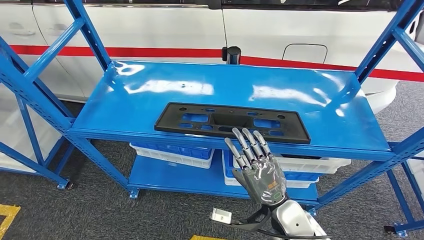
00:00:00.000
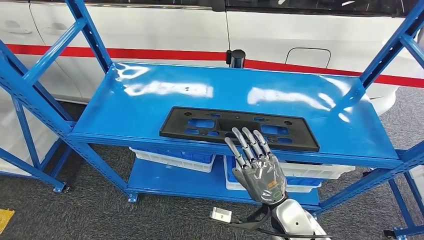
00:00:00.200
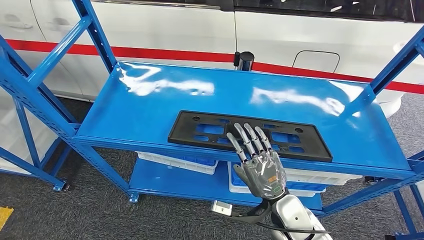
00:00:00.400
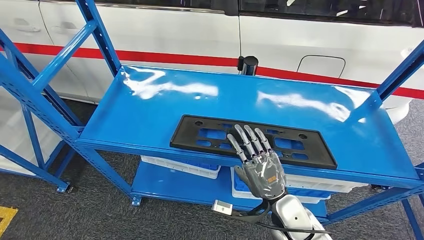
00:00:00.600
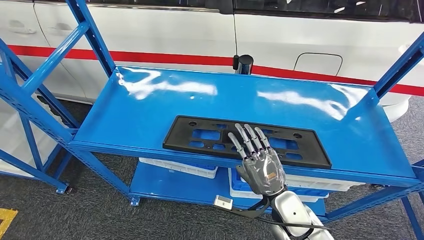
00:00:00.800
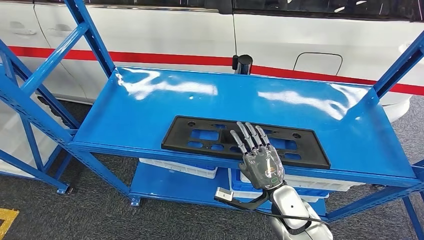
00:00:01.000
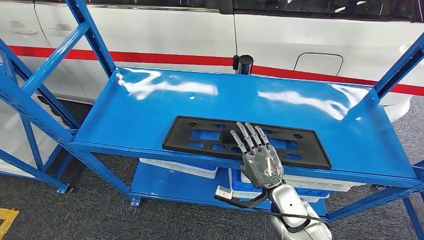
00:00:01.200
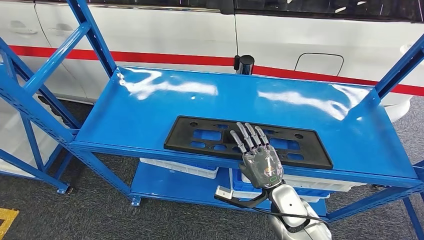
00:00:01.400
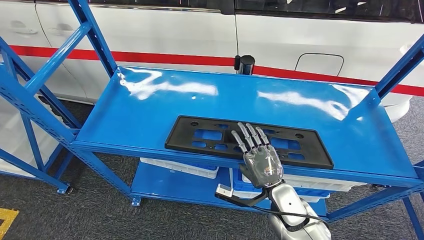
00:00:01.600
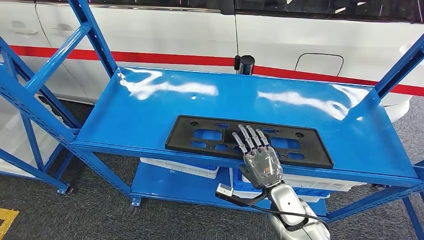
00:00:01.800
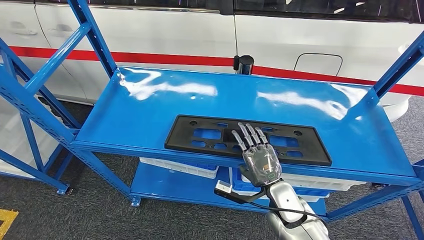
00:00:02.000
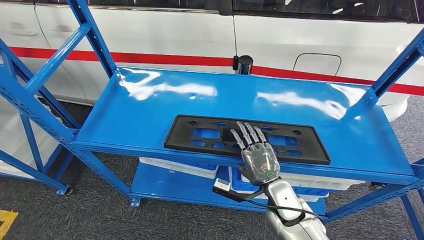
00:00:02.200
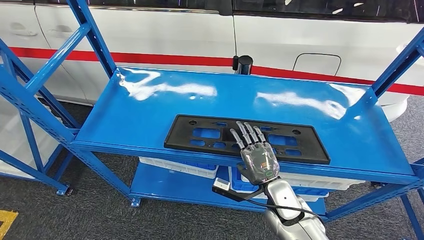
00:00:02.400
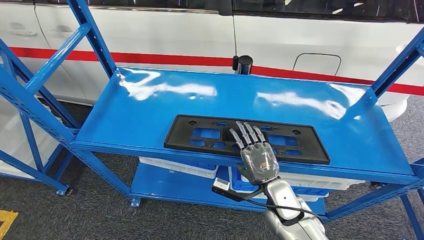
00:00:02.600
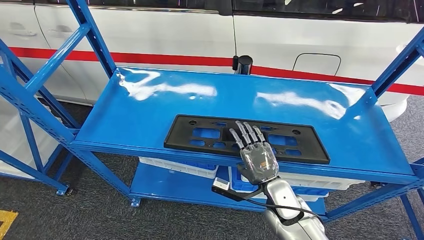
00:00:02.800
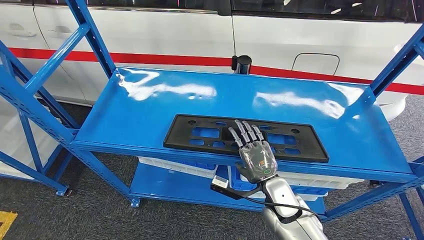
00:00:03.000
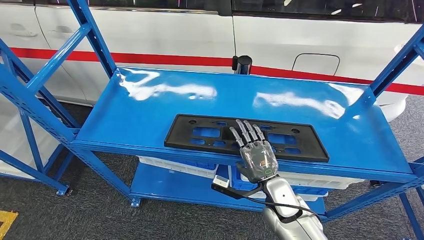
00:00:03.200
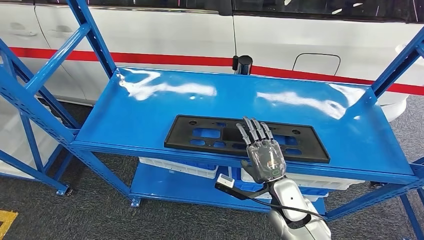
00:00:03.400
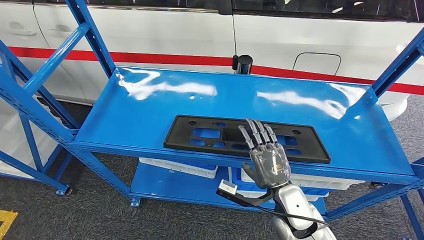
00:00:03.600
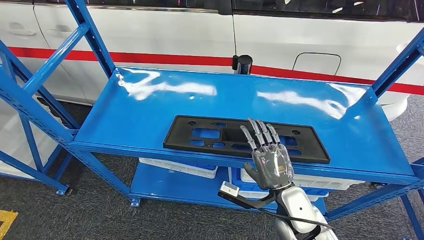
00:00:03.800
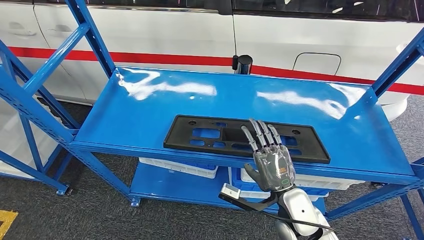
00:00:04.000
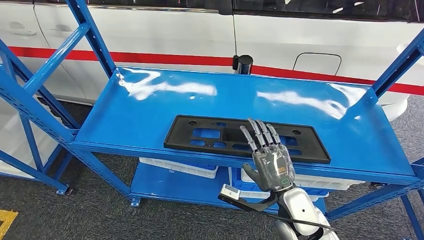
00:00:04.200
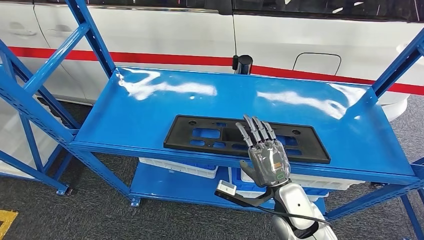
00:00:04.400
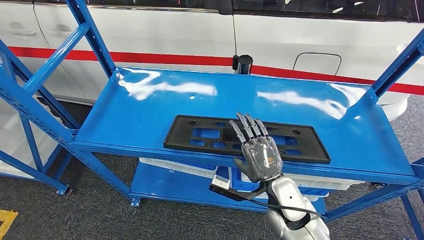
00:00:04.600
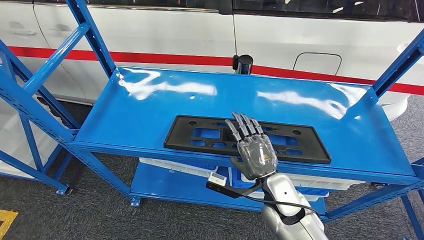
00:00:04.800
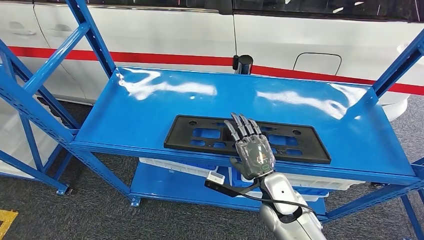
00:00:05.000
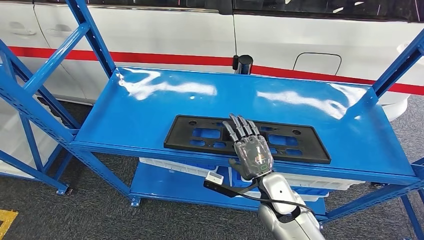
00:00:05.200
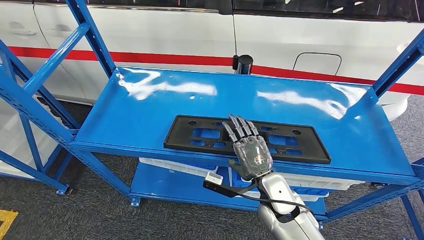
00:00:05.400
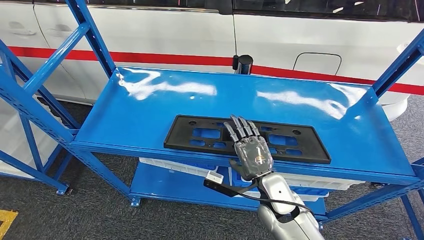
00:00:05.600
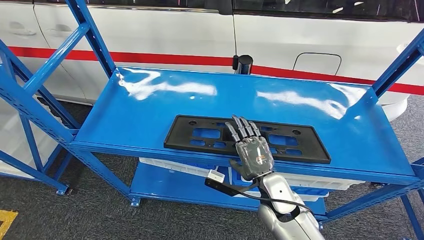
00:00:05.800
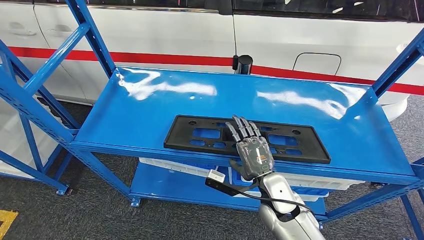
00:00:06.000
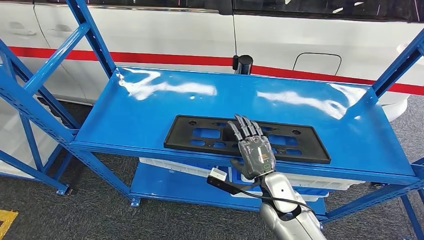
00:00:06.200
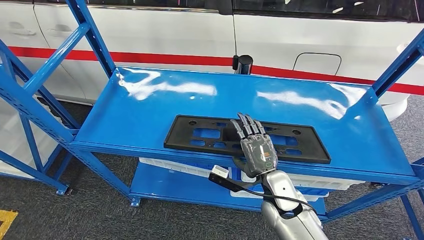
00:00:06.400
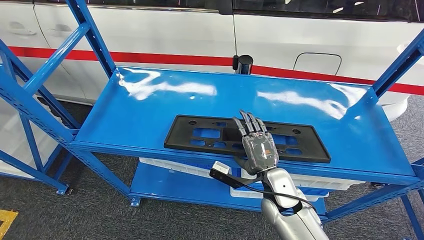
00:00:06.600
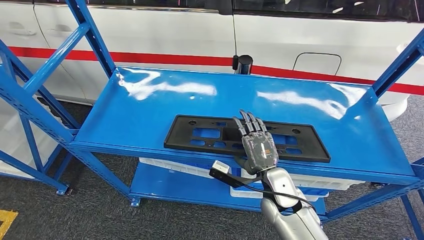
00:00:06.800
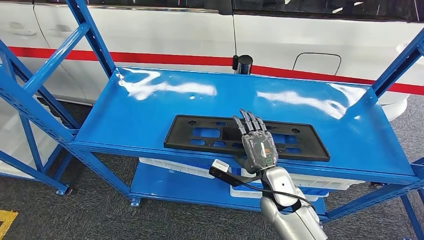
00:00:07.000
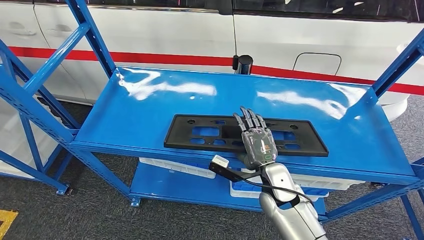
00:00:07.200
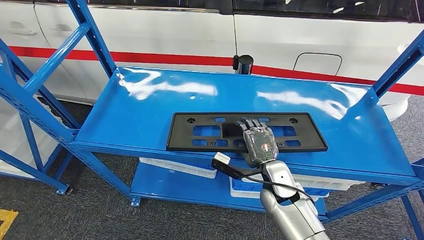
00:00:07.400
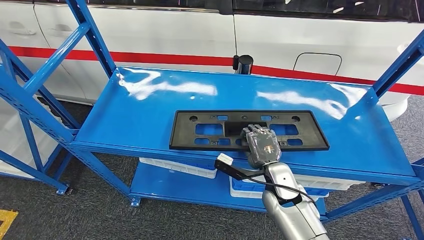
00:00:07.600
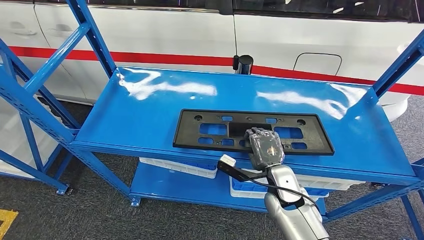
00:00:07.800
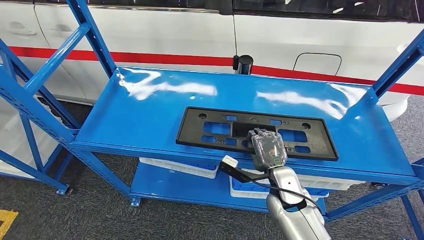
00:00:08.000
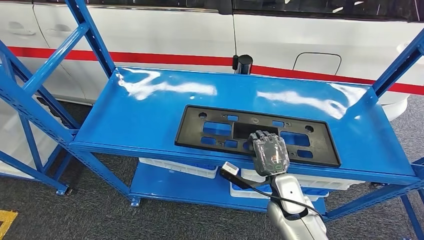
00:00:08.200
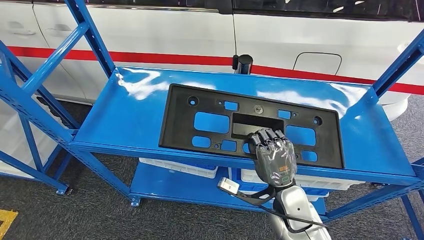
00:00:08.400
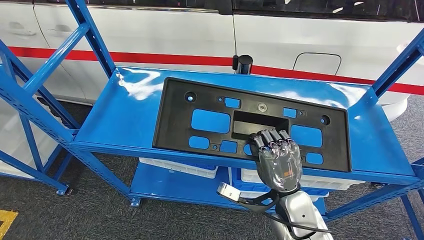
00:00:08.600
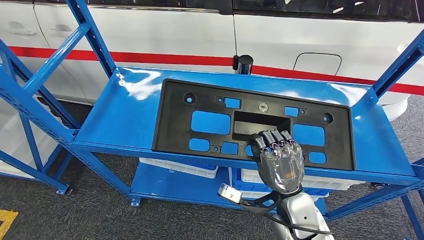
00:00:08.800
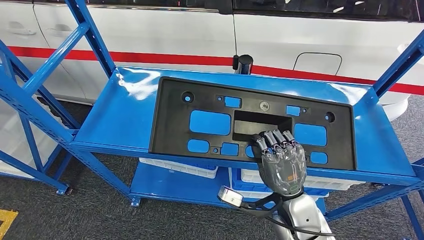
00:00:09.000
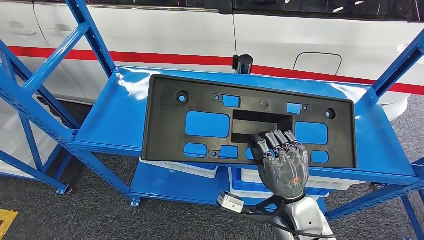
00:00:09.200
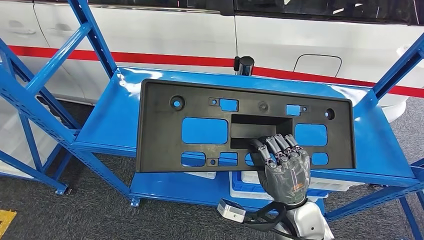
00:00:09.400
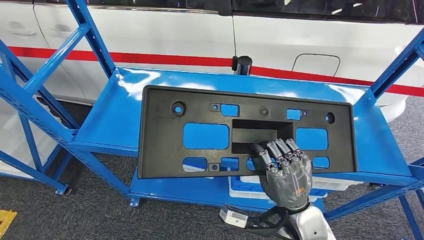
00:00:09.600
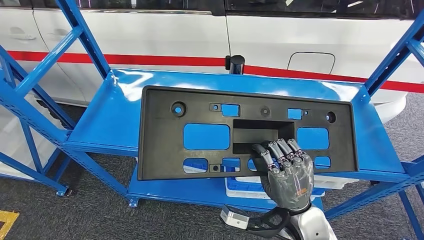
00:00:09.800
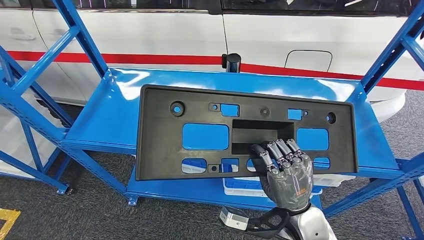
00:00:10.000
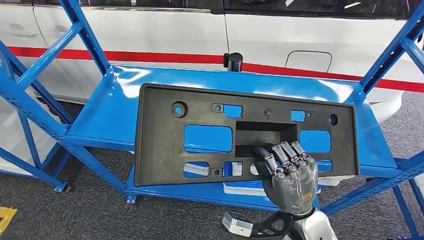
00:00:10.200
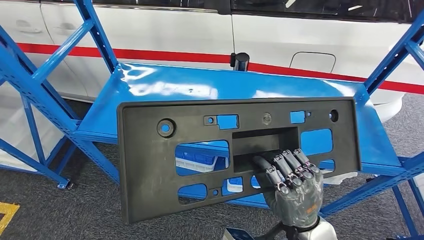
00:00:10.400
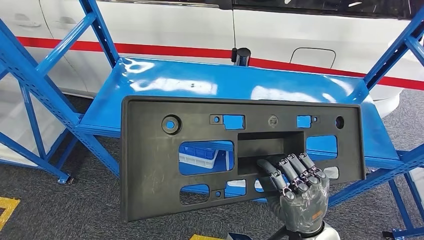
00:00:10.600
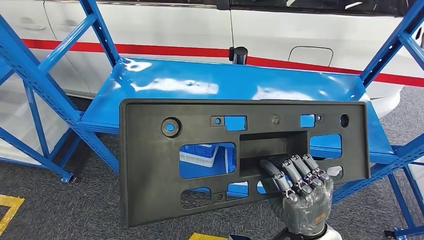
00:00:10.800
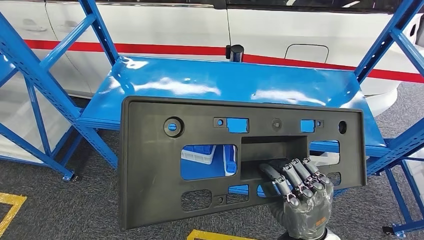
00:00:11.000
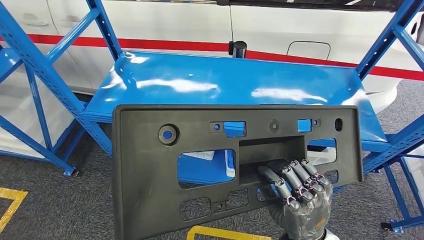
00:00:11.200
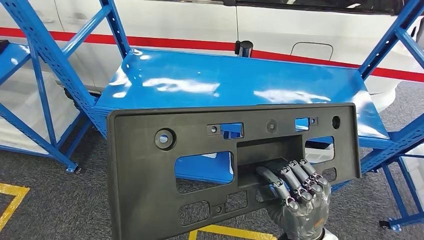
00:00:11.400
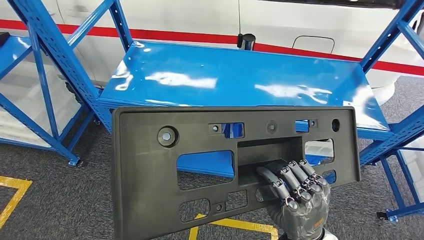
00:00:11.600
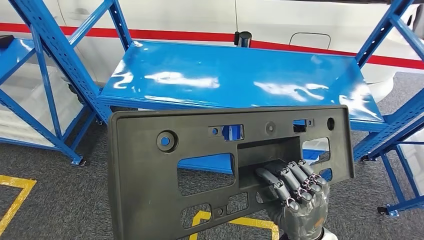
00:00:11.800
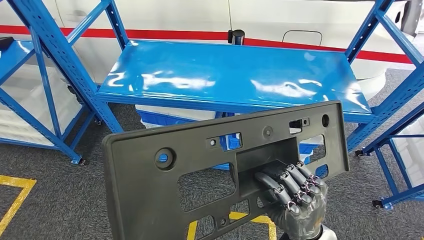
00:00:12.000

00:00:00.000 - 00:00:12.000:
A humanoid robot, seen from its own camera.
Step, 00:00:00.000 - 00:00:08.800: Pick up the large material from the shelf.
00:00:01.600 - 00:00:03.000: The hands make only small movements.
00:00:03.000 - 00:00:04.400: The right hand shifts by approximately 5 cm.
00:00:04.400 - 00:00:06.000: There are only small adjustments of the hands.
00:00:06.000 - 00:00:07.600: The hands stay close to where they were, moving slightly.
00:00:07.600 - 00:00:09.000: The right hand travels backward and upward by roughly 10 cm.

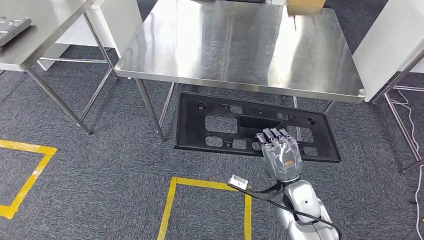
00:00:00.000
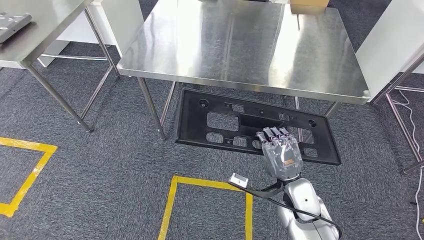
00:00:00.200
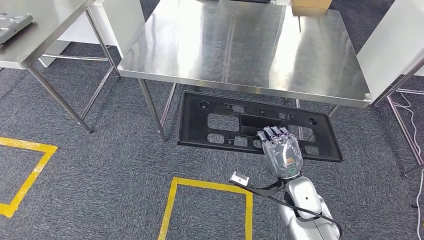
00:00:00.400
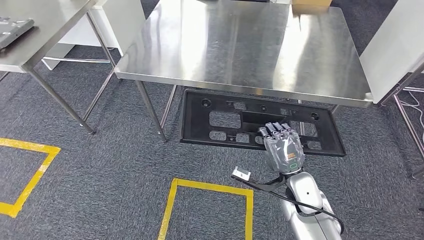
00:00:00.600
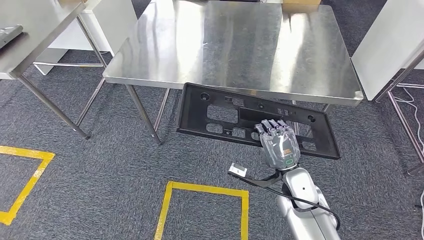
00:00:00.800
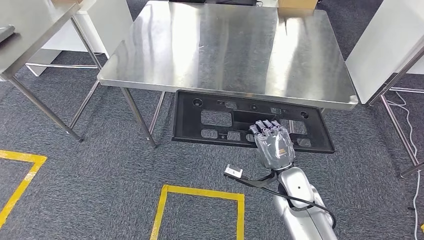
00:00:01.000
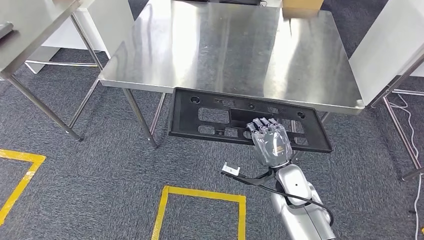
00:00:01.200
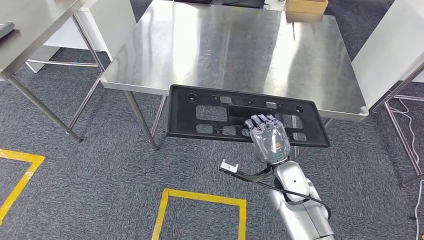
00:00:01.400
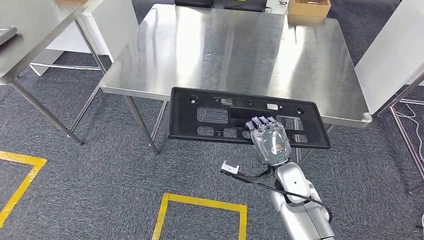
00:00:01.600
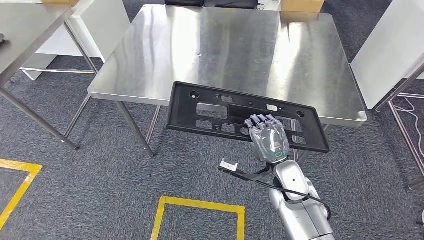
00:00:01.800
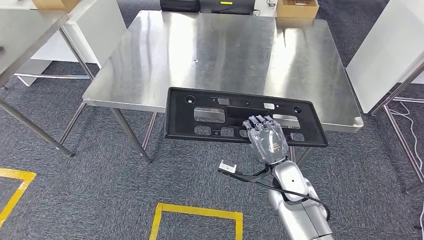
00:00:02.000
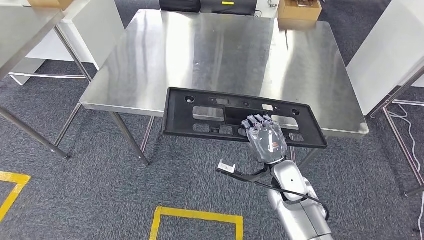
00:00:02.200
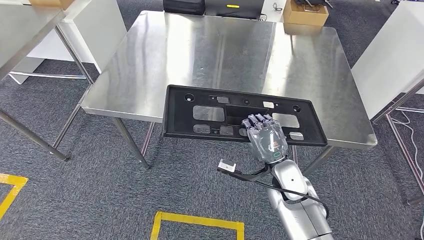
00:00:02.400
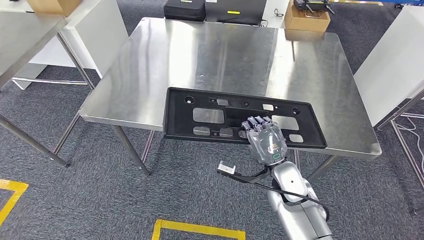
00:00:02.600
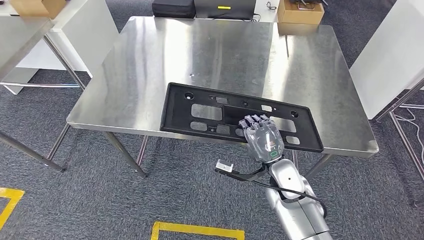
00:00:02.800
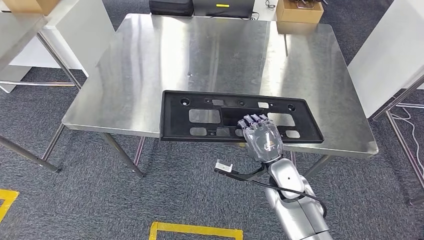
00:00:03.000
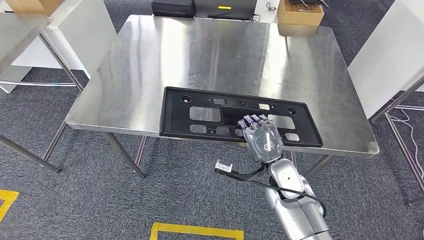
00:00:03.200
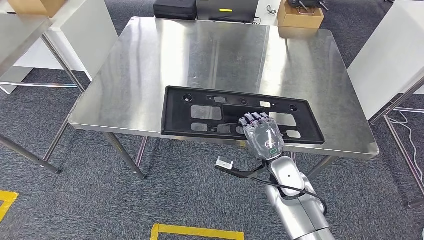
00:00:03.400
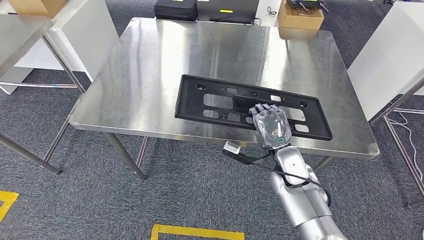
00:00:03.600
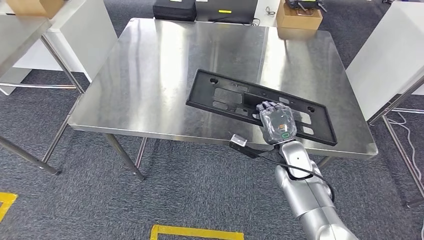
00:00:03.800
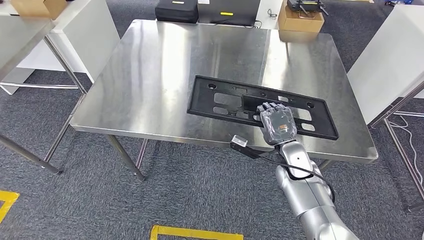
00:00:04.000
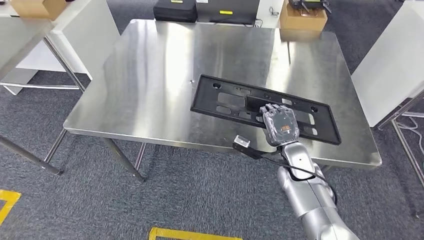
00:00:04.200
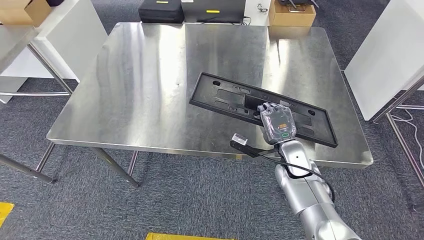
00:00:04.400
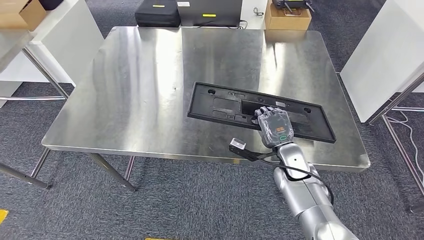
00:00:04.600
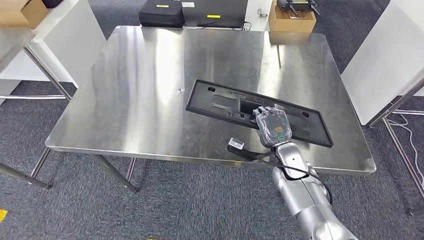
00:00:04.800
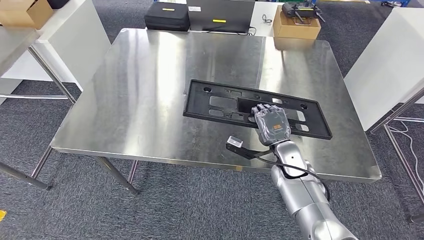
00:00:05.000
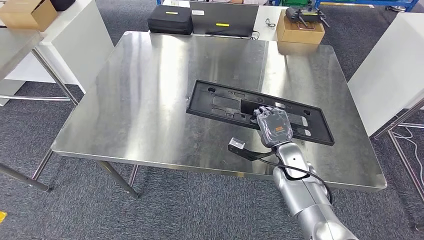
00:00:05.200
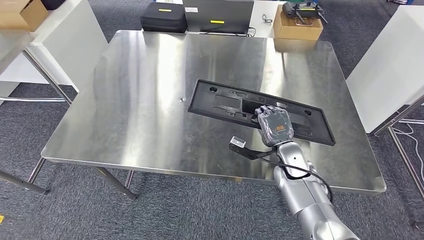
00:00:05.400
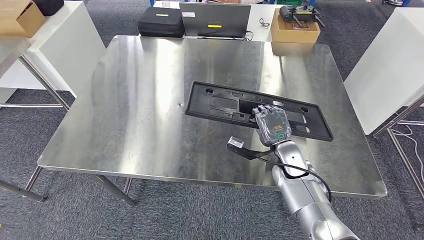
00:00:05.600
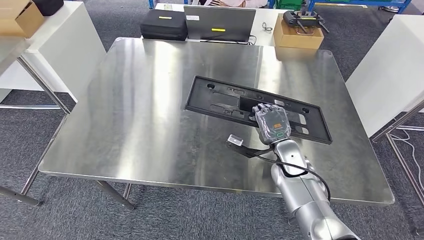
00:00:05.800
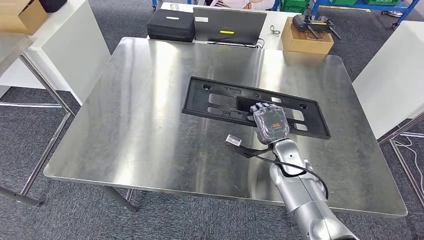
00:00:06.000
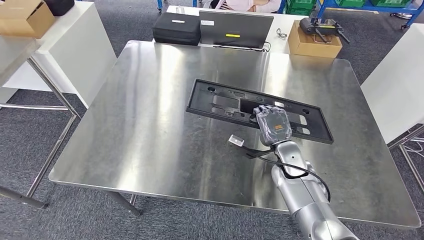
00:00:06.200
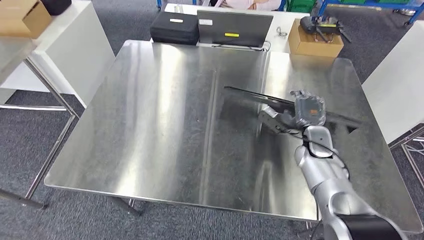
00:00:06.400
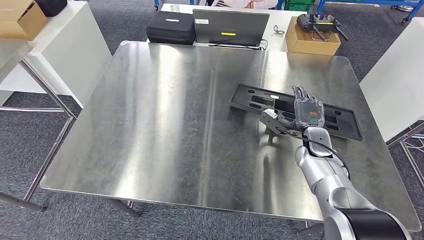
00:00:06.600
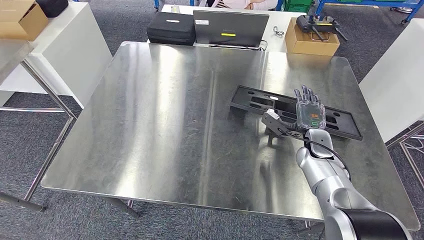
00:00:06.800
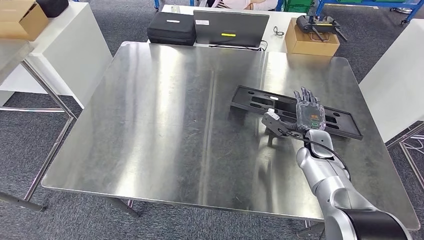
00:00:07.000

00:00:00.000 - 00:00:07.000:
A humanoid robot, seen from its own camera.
Step, 00:00:00.000 - 00:00:02.200: Move the large material to the workbench.
